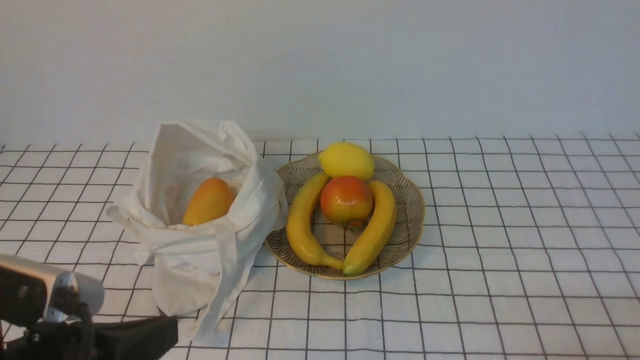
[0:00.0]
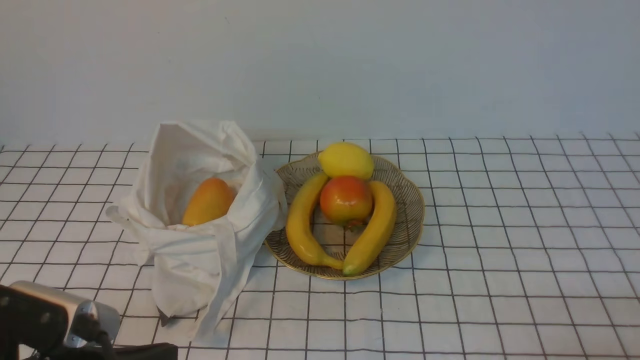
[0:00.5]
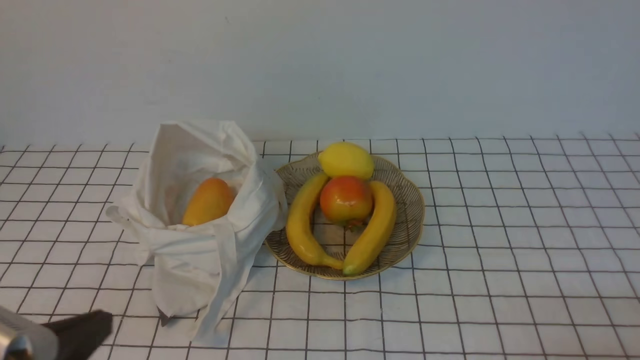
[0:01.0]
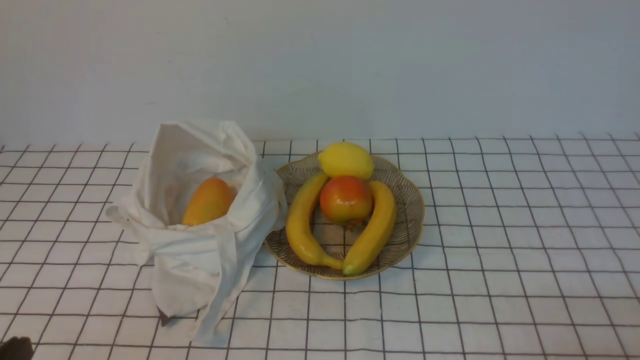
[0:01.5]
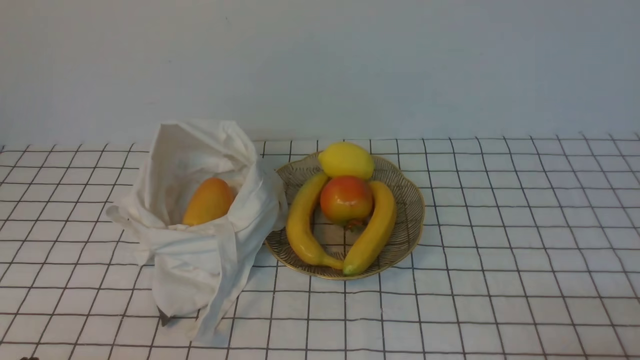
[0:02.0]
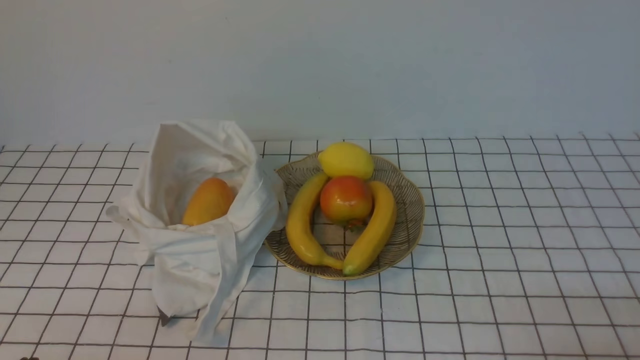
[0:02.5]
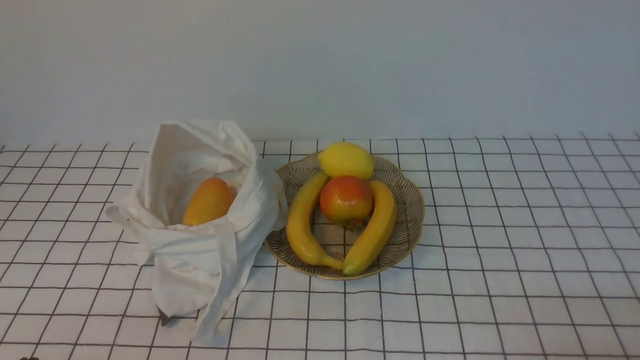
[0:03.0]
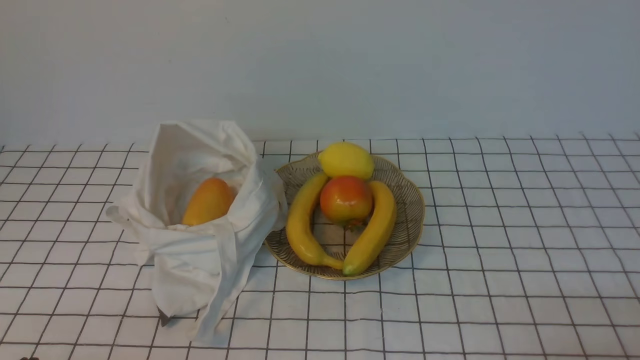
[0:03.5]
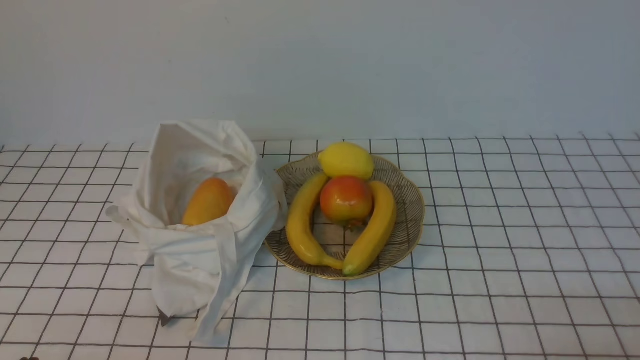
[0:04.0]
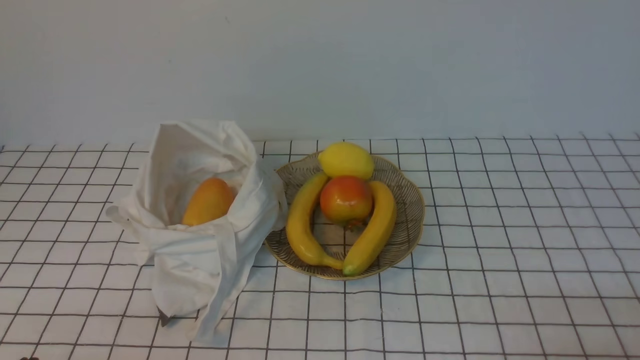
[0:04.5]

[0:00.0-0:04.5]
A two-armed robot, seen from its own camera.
0:00.0 to 0:02.0: The left gripper goes approximately 15 cm downward, to the left and backward.
0:02.0 to 0:04.5: The two grippers keep their place.
